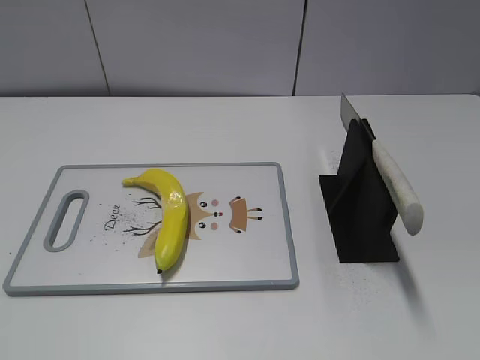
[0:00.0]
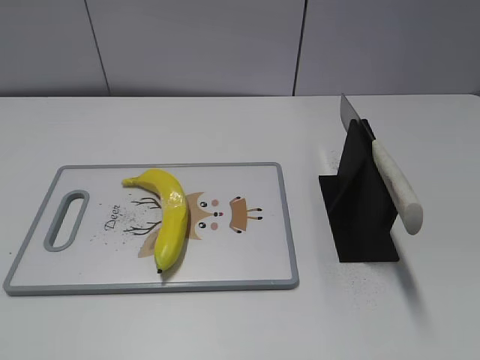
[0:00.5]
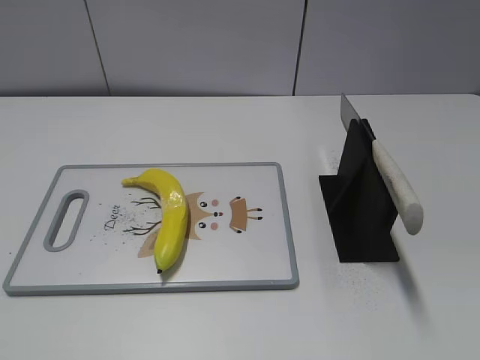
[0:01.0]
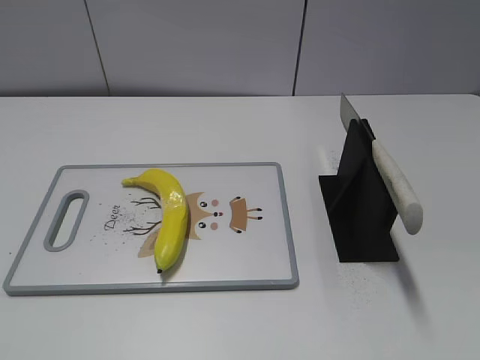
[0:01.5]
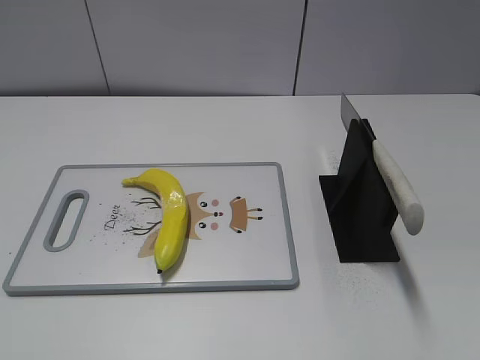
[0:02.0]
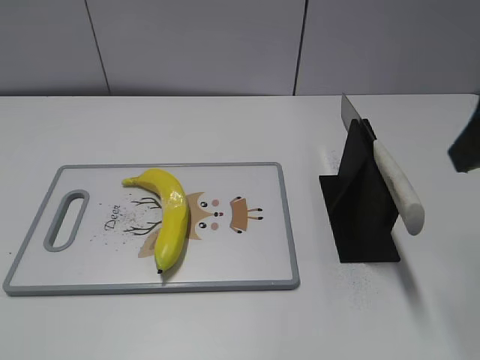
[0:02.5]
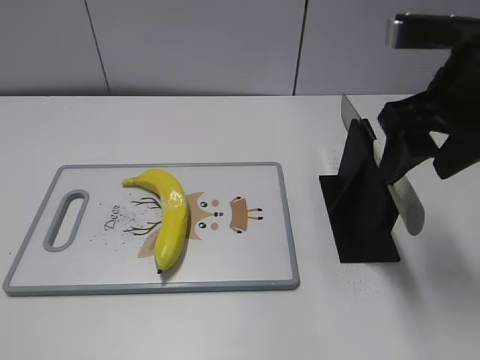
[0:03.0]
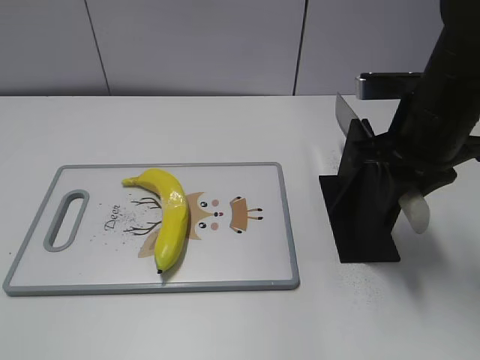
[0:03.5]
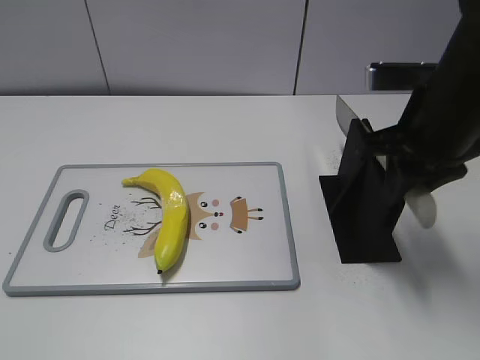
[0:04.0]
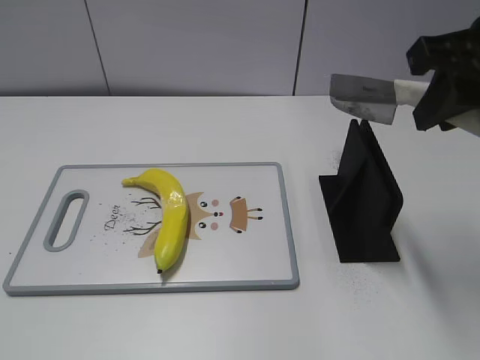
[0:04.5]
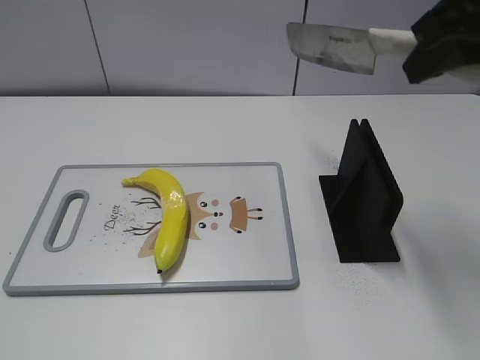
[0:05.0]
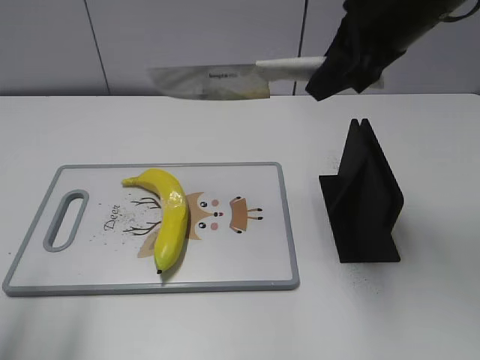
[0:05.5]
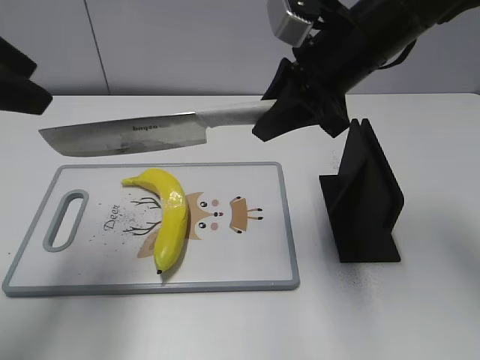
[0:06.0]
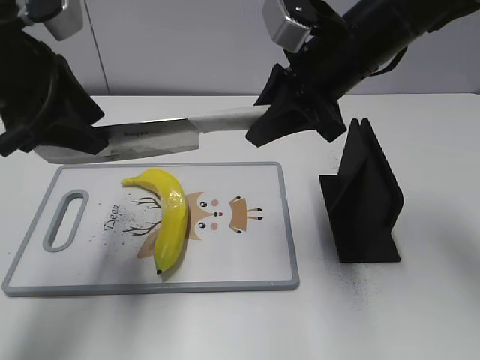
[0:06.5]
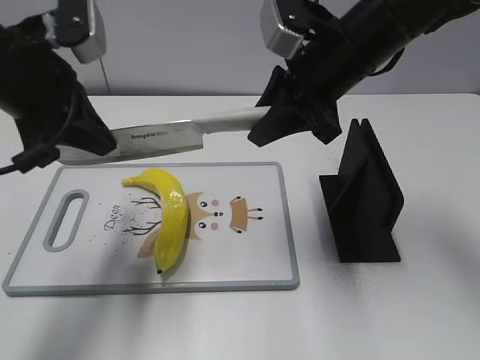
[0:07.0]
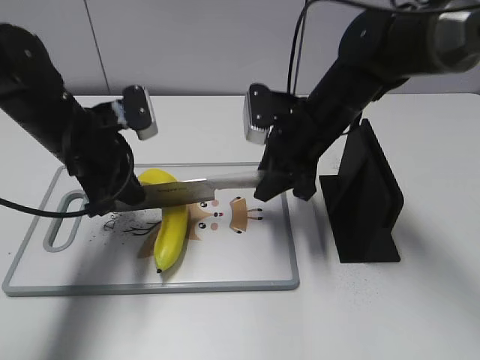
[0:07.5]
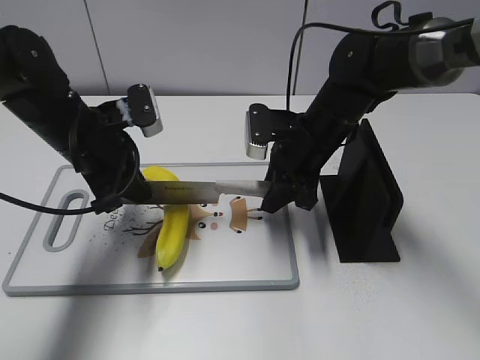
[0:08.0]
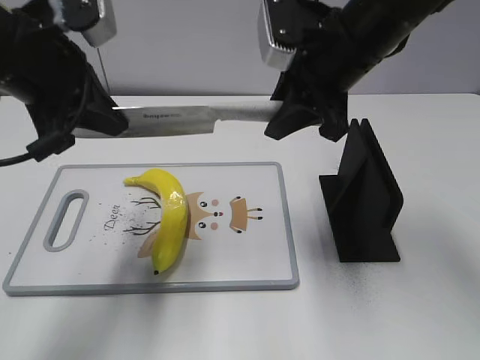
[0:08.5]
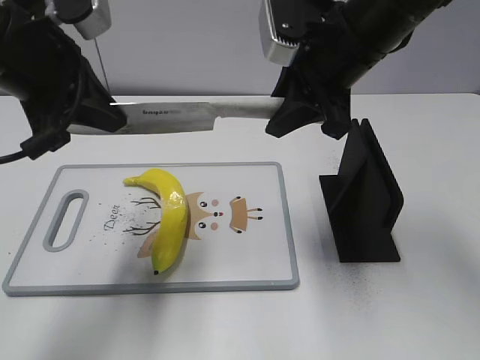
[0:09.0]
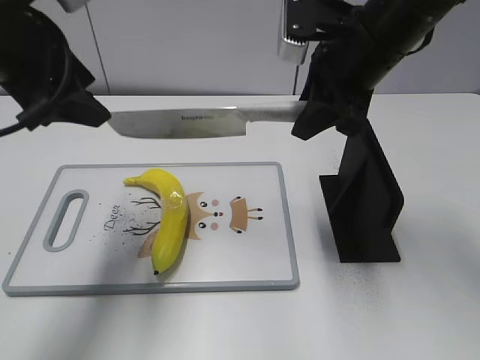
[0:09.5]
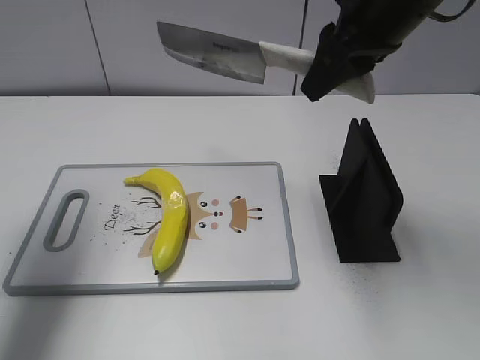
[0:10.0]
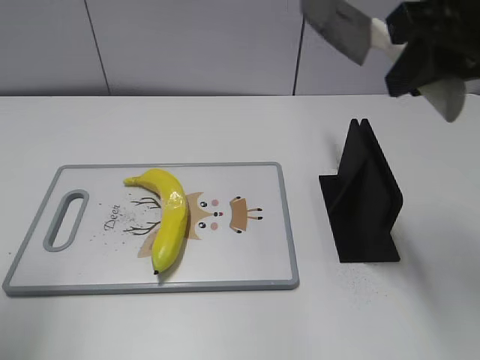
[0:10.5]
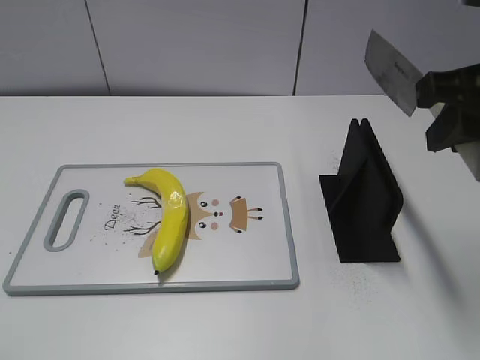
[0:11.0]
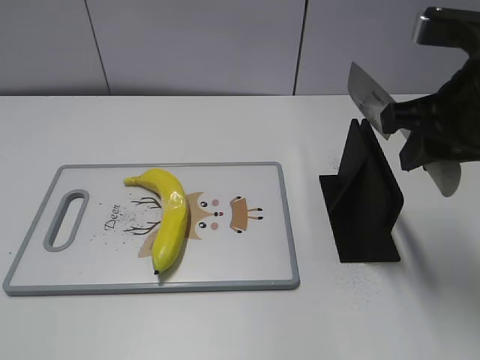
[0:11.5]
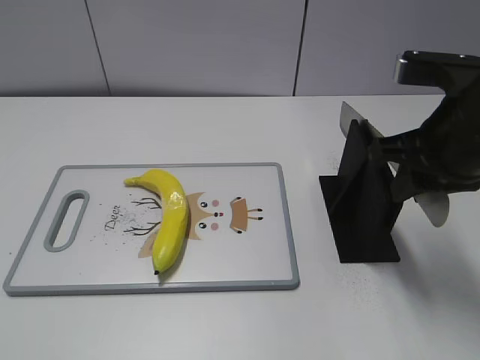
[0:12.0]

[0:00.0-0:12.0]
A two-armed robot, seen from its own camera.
Task of the whole recording: cut plastic banana.
Step, 0:00.0 to 0:04.5: Grab the knife handle with your right hand.
Step, 0:05.0 to 0:08.0: Lift the knife with your right hand.
Step, 0:09.0 to 0:09.5: Cut the banana with your right hand.
Step, 0:10.0 to 0:11.0: Lift the knife with your right hand.
0:02.0 to 0:04.0: The right gripper heads forward, downward and to the left, covering approximately 25 cm, and closes.
0:04.0 to 0:06.0: The right gripper shifts some 10 cm to the left and forward, and travels upward and back again, some 10 cm each way; the left gripper heads forward, covering approximately 25 cm.
0:06.0 to 0:08.0: The right gripper shifts approximately 15 cm downward; the left gripper heads downward, to the right and forward, covering about 20 cm, and closes its fingers.
0:08.0 to 0:10.0: The right gripper is displaced upward by approximately 20 cm; the left gripper heads upward and to the left, covering some 20 cm, and opens.
0:10.0 to 0:12.0: The left gripper moves backward, roughly 30 cm; the right gripper goes about 15 cm downward, backward and to the right.

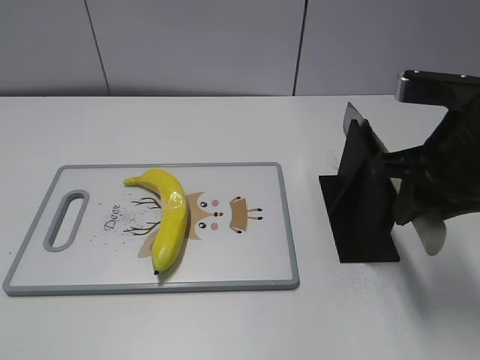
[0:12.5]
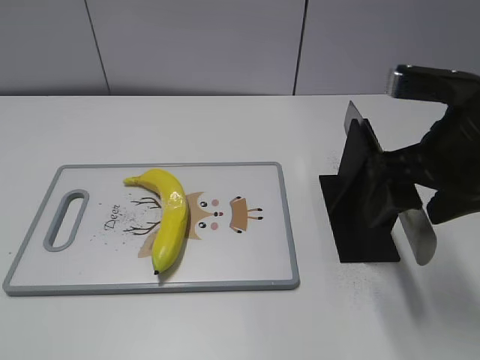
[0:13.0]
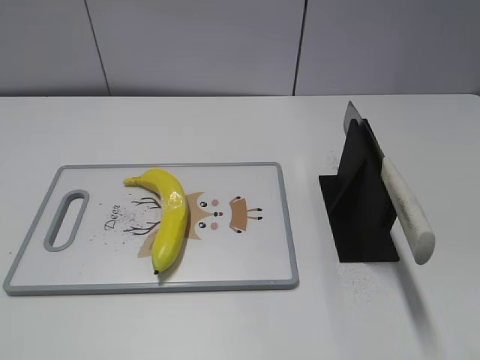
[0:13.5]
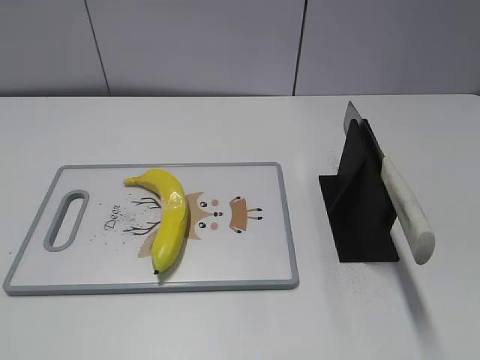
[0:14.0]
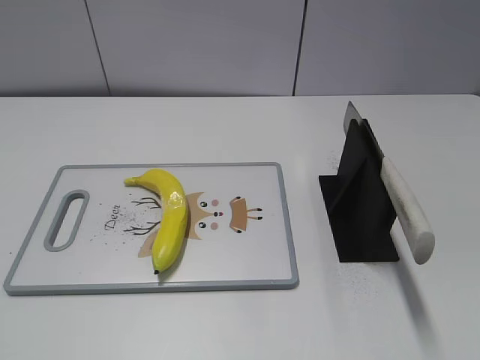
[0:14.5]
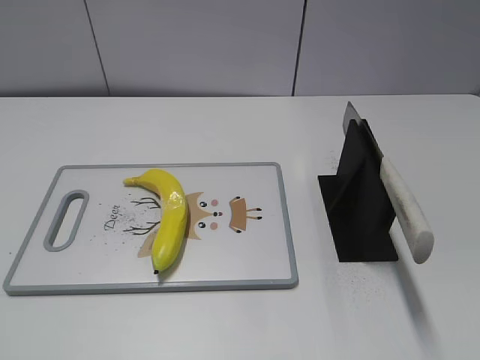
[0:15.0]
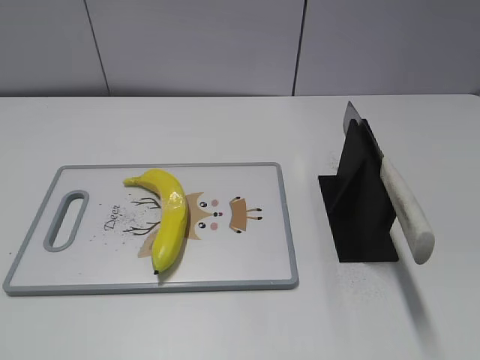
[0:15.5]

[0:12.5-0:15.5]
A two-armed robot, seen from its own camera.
Task of the whole recording: cut plastic banana.
Step, 0:12.5 to 0:15.5: Place the knife on the storage rack with your right hand.
0:12.5 to 0:14.0: The right gripper is displaced backward by approximately 20 cm, and opens its fingers.

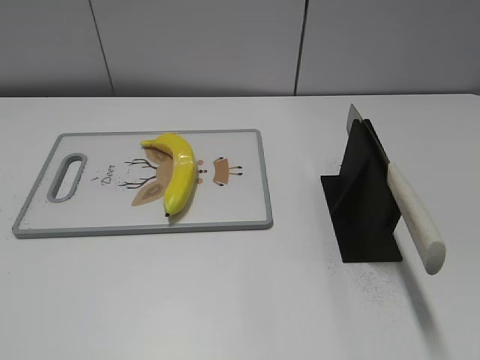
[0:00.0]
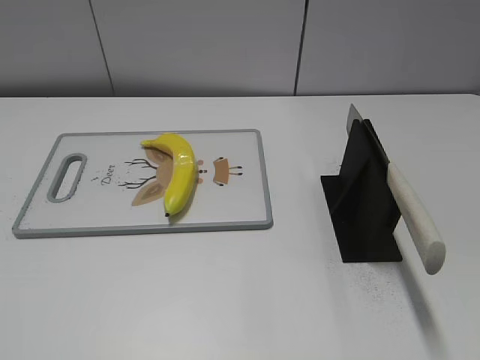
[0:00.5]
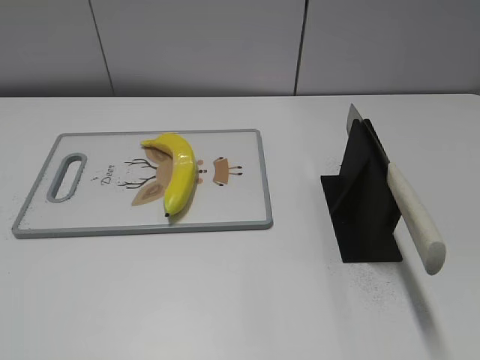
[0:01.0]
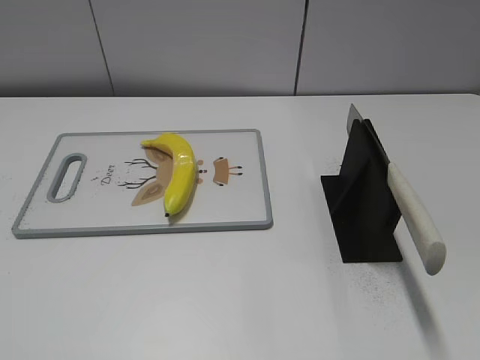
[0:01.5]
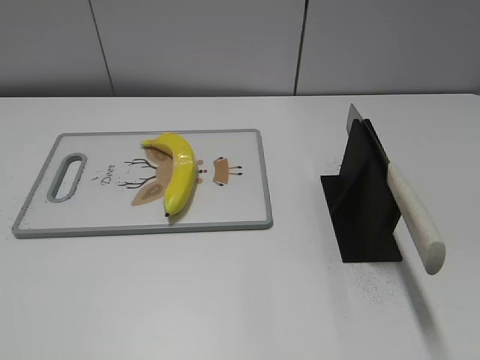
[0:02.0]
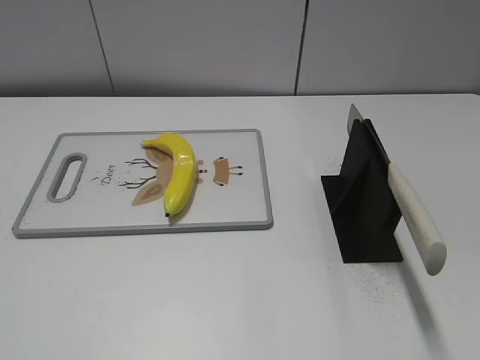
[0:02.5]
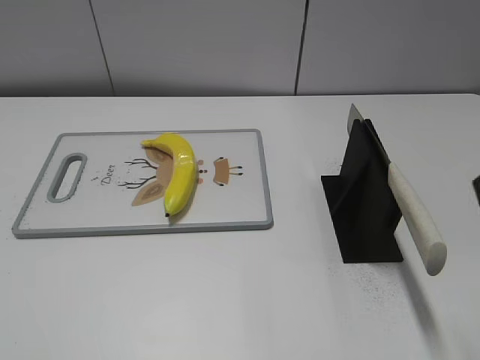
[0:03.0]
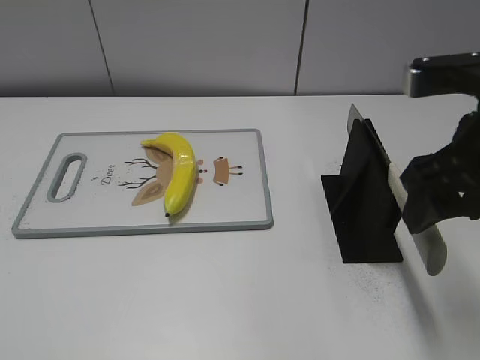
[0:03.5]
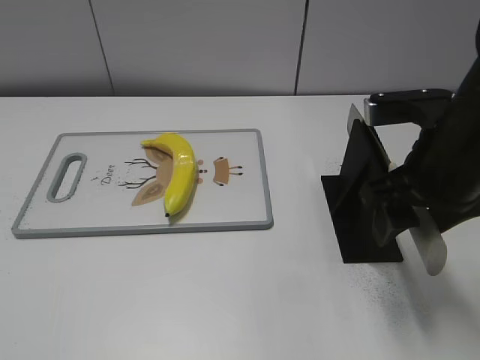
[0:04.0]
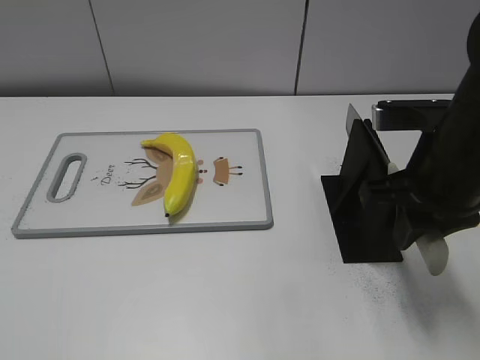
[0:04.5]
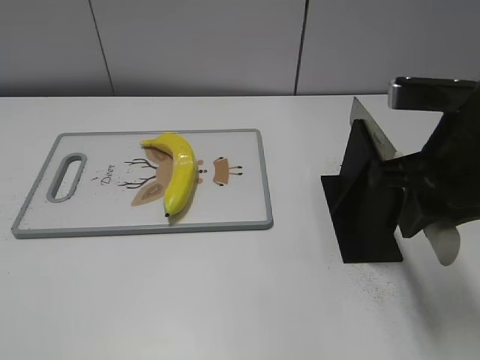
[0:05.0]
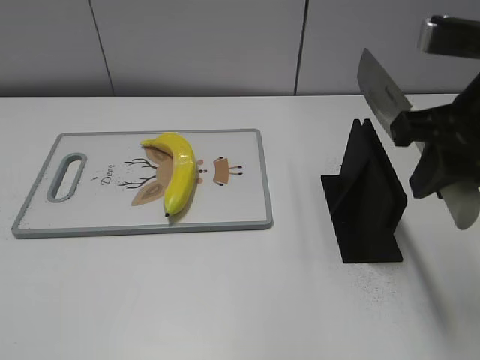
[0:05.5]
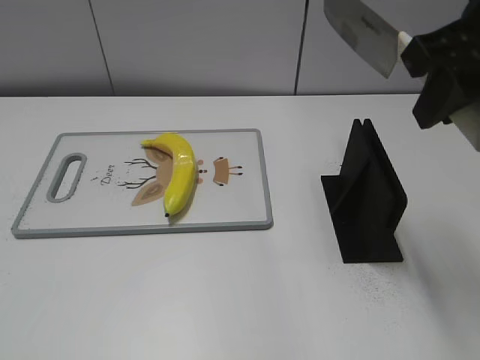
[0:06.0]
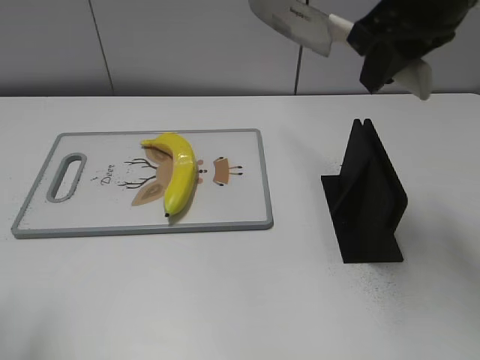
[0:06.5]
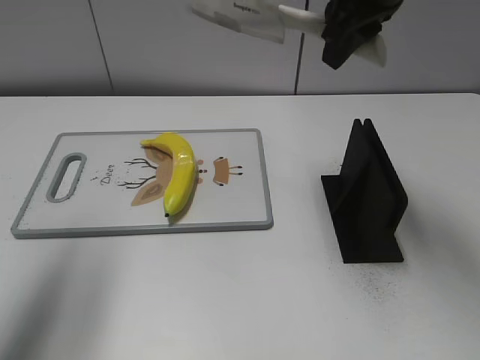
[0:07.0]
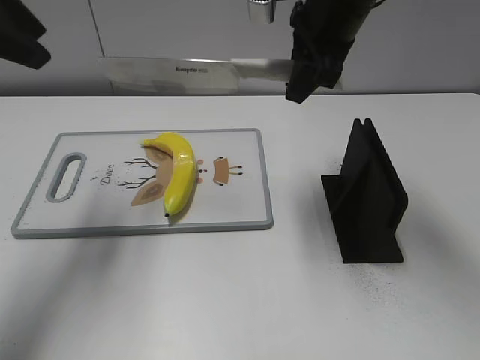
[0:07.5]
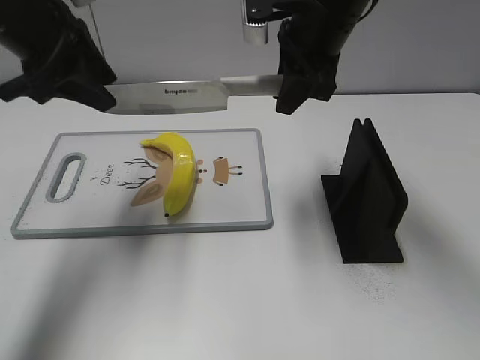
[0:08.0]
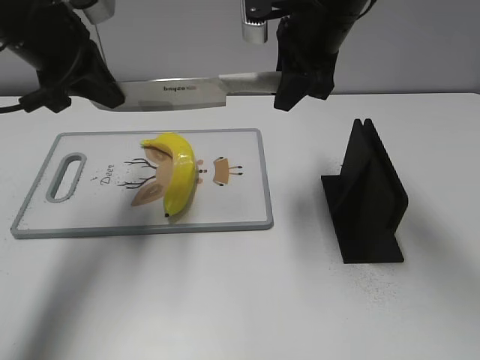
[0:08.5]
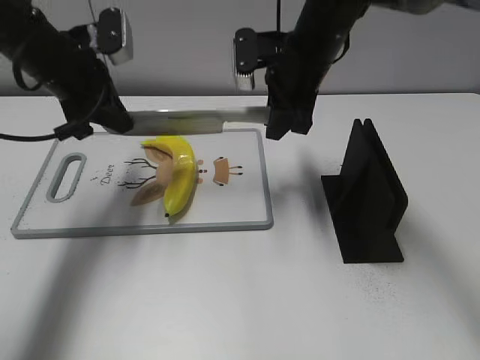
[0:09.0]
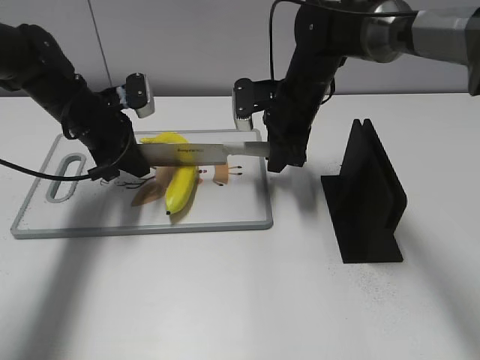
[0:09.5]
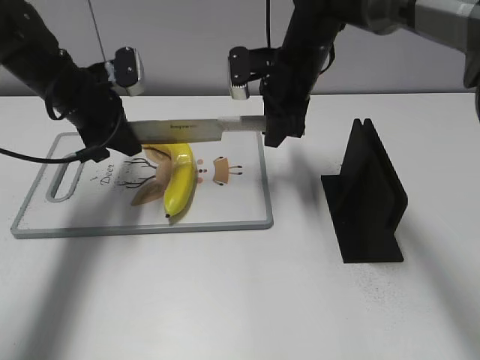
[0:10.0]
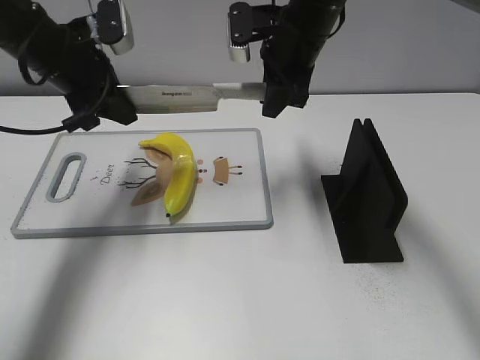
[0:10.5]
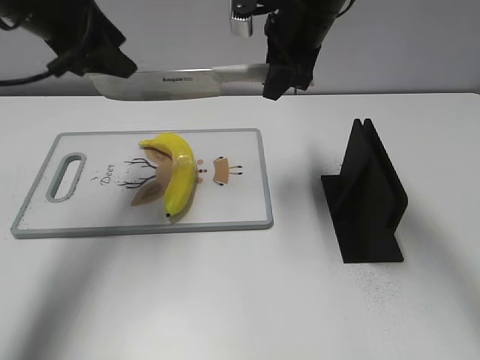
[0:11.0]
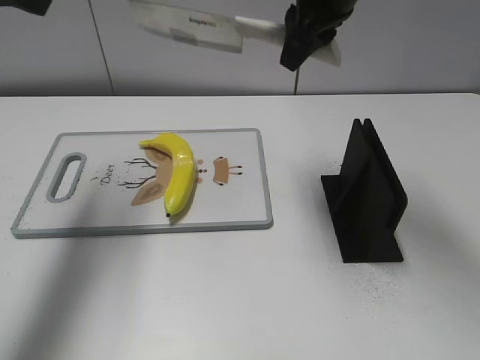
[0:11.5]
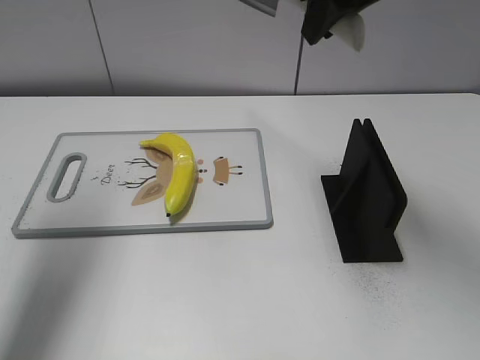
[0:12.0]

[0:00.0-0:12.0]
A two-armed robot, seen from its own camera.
Task of the whole recording: cut plastic banana.
Step, 0:00.0 to 0:05.5: Grab the knife handle with your right hand.
Step, 0:06.0 to 0:10.5: Lift the knife with your right hand.
Step, 0:11.0 to 0:11.5: Cut the banana with your right hand.
0:02.0 to 0:04.0: The right gripper is displaced forward and to the left by about 25 cm.
0:04.0 to 0:06.0: The right gripper is displaced upward by some 10 cm, and closes up.
0:06.0 to 0:08.0: The right gripper goes about 20 cm forward, to the left and downward. The left gripper goes about 35 cm forward.
0:08.0 to 0:10.0: Both grippers move downward and forward, roughly 10 cm. The left gripper closes.
0:10.0 to 0:12.0: The left gripper moves upward, backward and to the left, roughly 20 cm, and opens up. Meanwhile the right gripper goes about 20 cm upward and backward.
